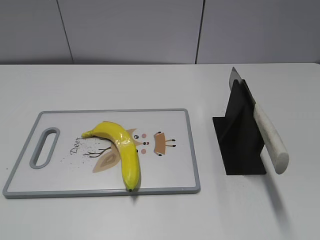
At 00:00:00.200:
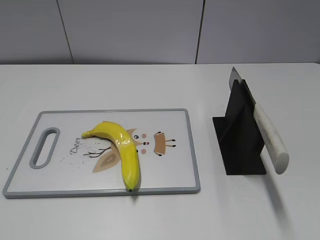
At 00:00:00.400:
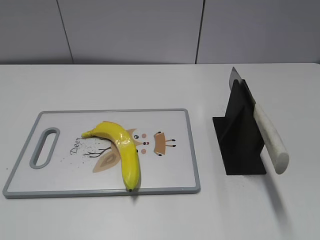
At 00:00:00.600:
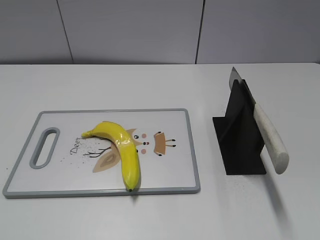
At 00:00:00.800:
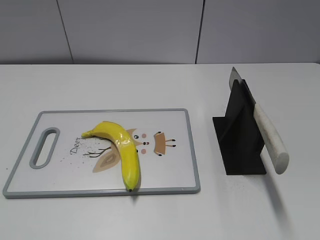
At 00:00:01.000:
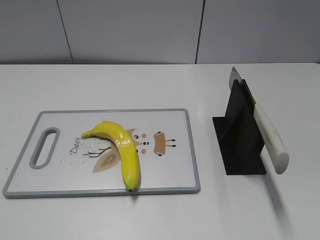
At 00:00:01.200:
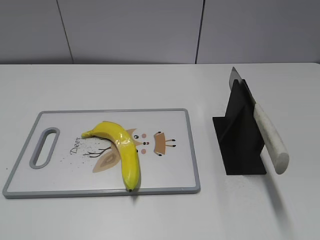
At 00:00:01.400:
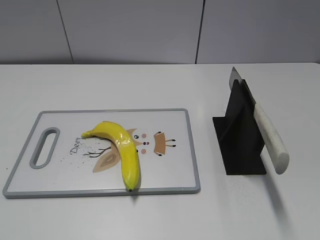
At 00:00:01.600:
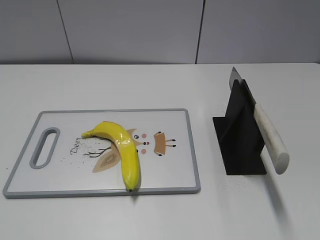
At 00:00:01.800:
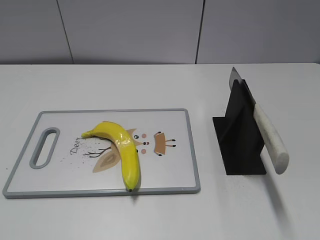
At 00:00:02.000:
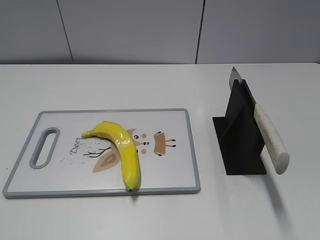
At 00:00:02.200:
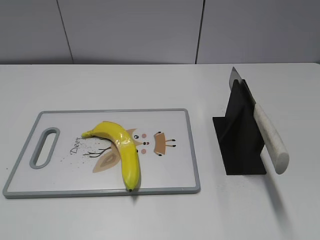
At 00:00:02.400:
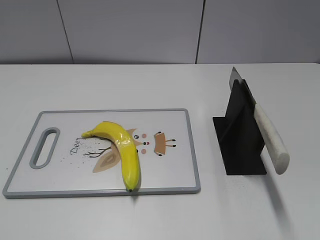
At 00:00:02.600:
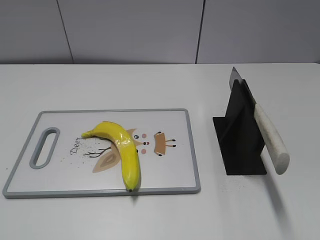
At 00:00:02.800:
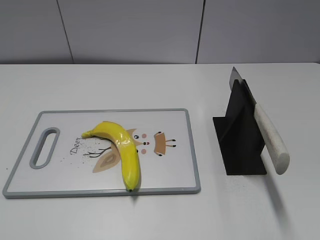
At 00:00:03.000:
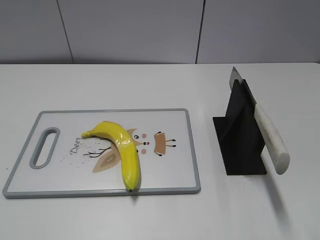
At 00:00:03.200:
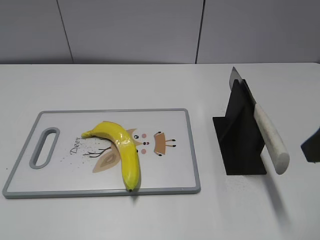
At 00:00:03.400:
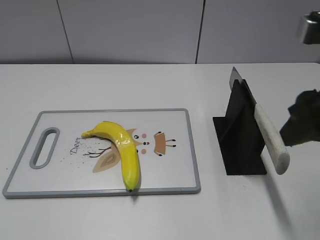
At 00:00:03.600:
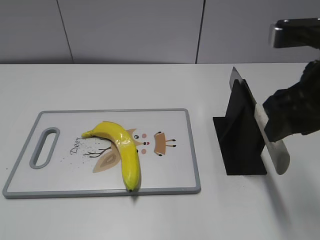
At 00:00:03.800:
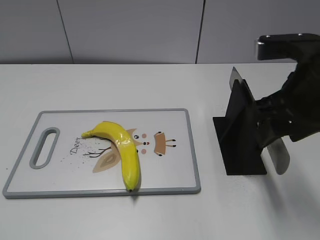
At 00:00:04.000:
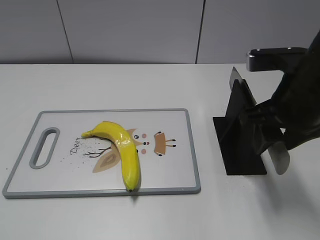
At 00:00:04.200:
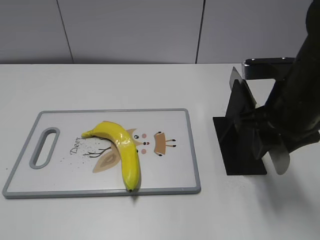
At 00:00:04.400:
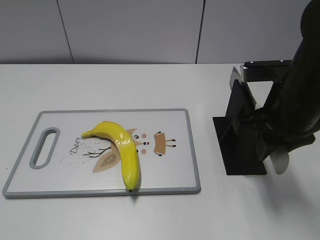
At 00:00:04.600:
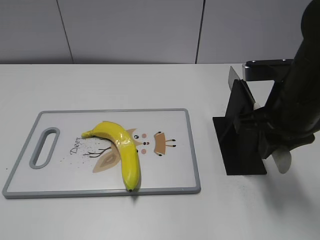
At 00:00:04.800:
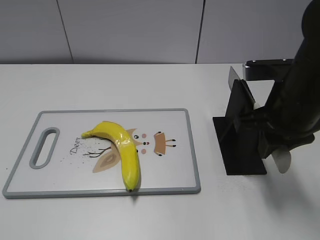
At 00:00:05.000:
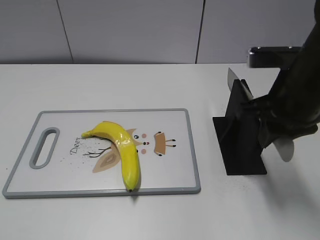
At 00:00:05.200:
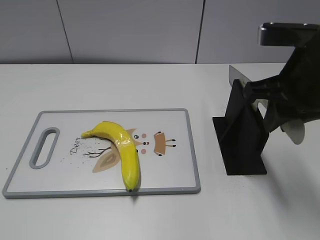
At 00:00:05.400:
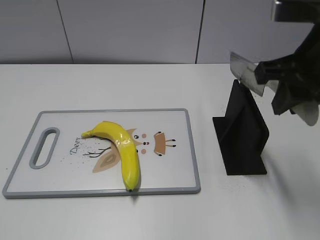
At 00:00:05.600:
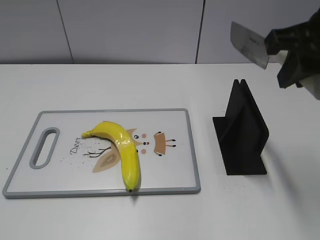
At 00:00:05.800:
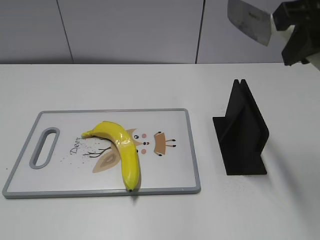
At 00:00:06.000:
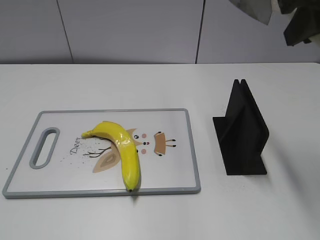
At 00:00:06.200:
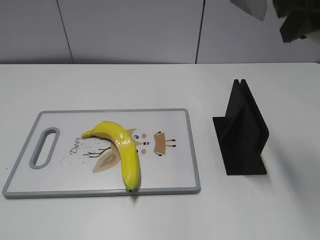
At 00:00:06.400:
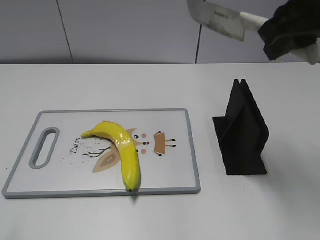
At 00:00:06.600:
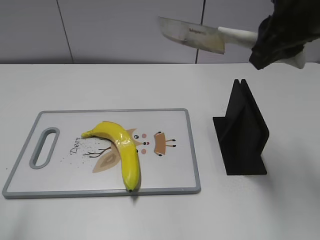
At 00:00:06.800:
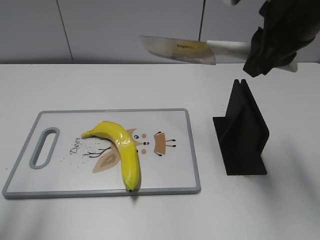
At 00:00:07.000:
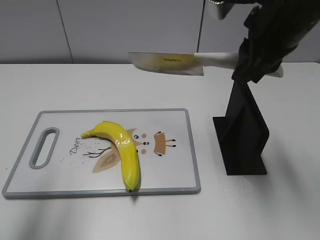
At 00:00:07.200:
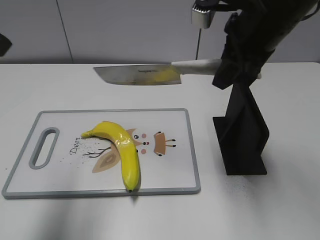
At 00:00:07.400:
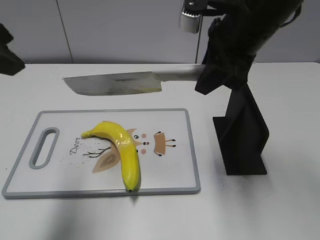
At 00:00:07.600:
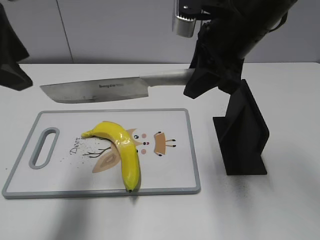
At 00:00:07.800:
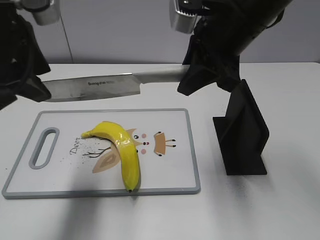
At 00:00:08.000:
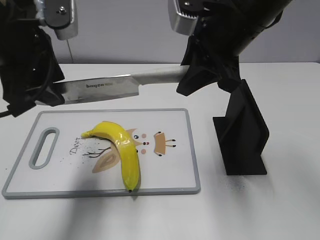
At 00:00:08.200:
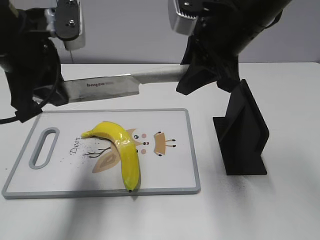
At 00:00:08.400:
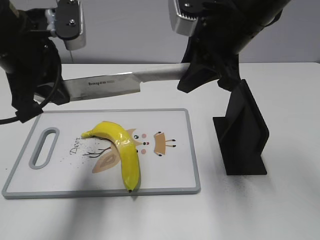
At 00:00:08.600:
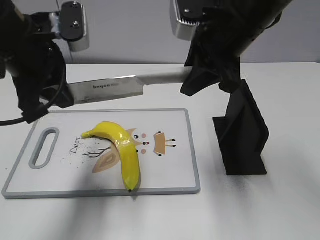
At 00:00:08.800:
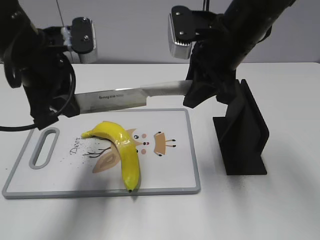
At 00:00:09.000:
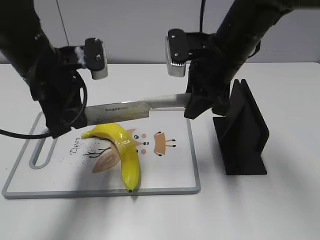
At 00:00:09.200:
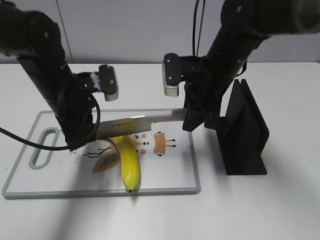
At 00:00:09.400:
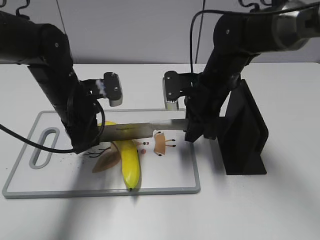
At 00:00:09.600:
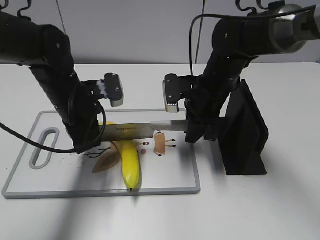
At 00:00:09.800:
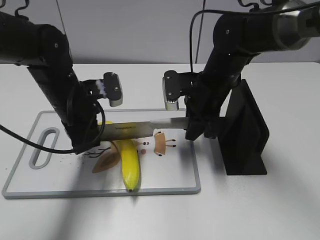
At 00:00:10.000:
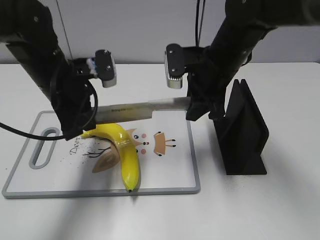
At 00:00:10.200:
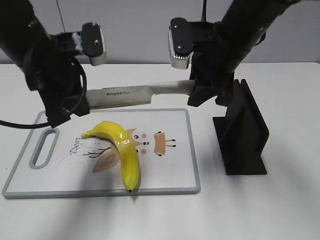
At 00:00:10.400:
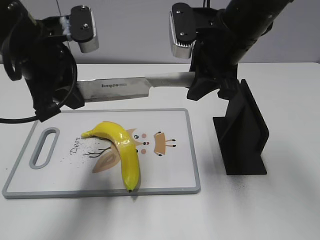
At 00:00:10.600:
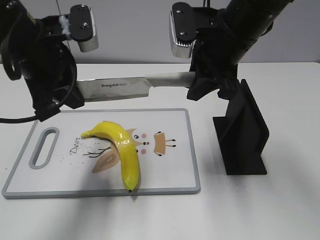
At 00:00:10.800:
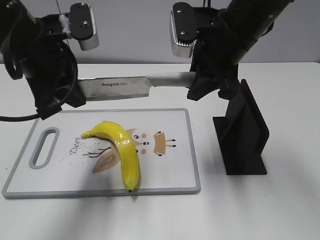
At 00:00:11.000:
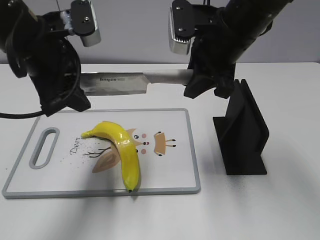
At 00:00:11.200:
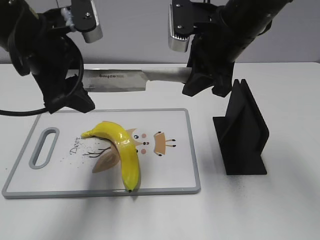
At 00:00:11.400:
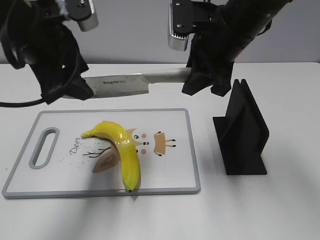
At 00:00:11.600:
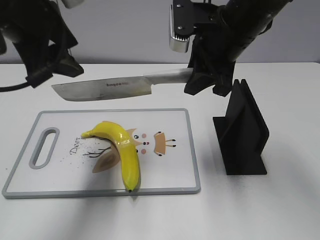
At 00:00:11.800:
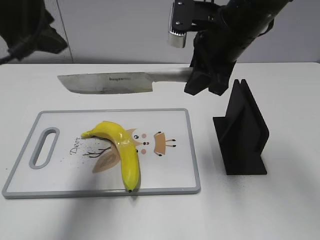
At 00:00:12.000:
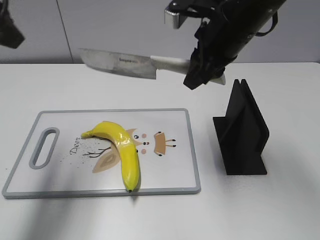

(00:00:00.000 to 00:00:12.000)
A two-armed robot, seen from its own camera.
Task of the whole recording: cut plastic banana.
Step, 00:00:00.000 - 00:00:05.800: Grab the knife handle with your right hand.
Step, 00:00:06.000 - 00:00:10.400: Hold the blade with your left hand.
00:00:03.000 - 00:00:04.400: The right gripper shifts approximately 15 cm forward, downward and to the left, and closes its fingers.
00:00:04.400 - 00:00:06.000: The right gripper heads upward, covering roughly 15 cm.
00:00:06.000 - 00:00:07.600: The left gripper heads forward and to the right, covering roughly 25 cm, while the right gripper moves downward, to the left and forward, approximately 15 cm.
00:00:07.600 - 00:00:09.000: The right gripper goes about 5 cm downward; the left gripper goes approximately 15 cm downward and forward, and closes its fingers.
00:00:09.000 - 00:00:10.400: The left gripper reaches about 10 cm downward, then returns; the right gripper moves about 10 cm downward and comes back.
00:00:10.400 - 00:00:12.000: The left gripper shifts some 10 cm upward and to the left, and opens up.

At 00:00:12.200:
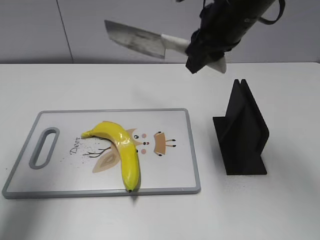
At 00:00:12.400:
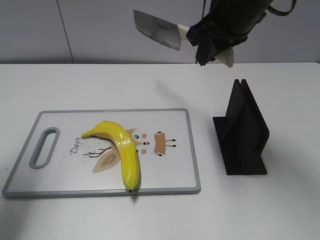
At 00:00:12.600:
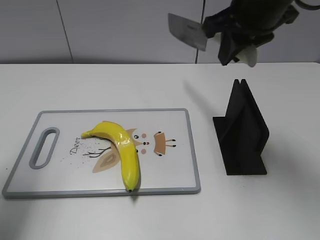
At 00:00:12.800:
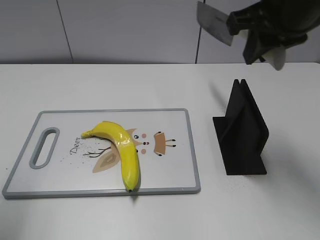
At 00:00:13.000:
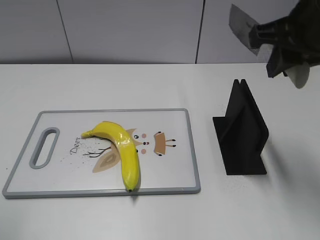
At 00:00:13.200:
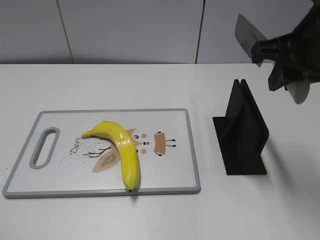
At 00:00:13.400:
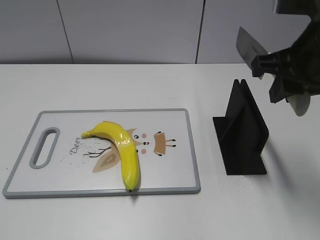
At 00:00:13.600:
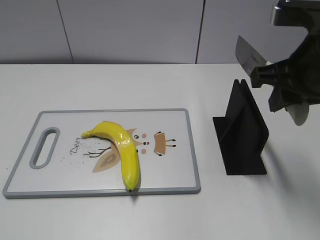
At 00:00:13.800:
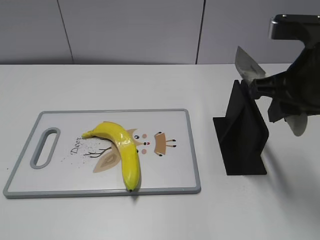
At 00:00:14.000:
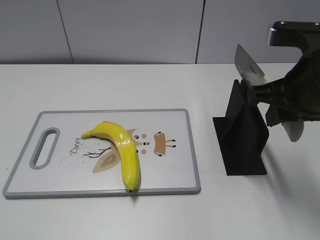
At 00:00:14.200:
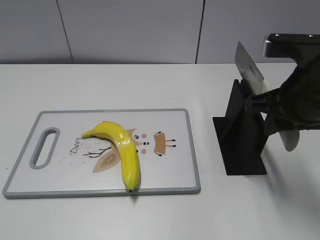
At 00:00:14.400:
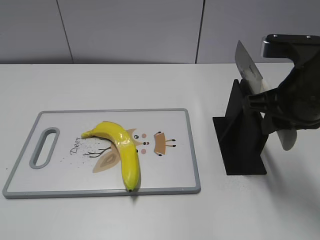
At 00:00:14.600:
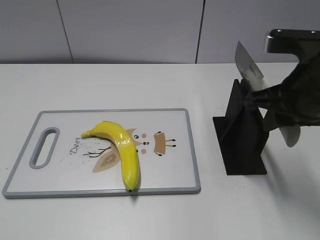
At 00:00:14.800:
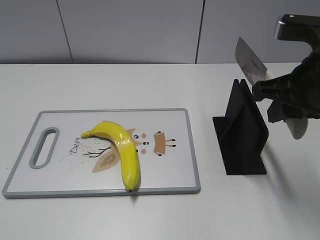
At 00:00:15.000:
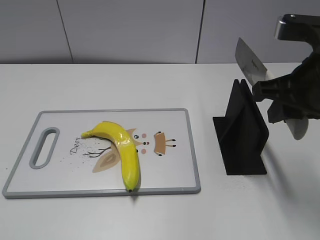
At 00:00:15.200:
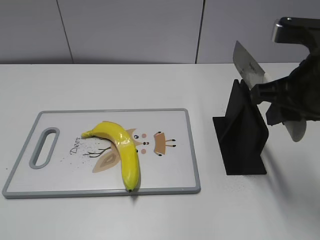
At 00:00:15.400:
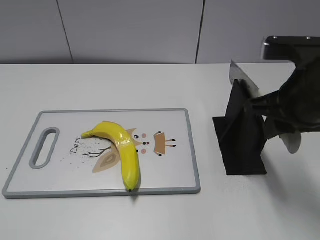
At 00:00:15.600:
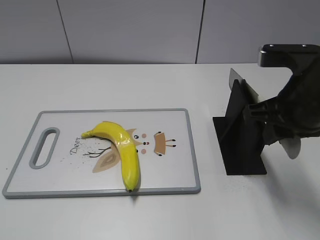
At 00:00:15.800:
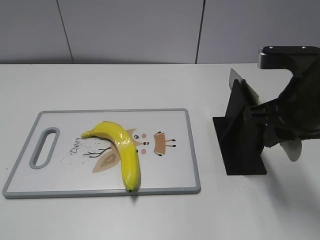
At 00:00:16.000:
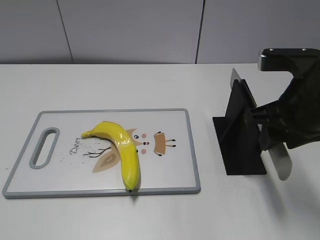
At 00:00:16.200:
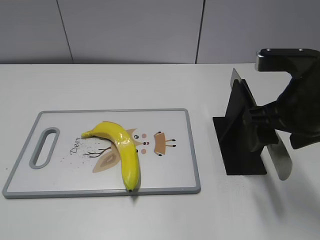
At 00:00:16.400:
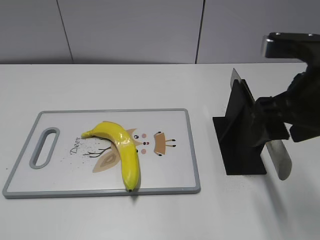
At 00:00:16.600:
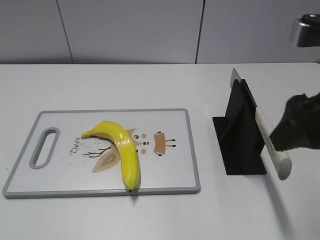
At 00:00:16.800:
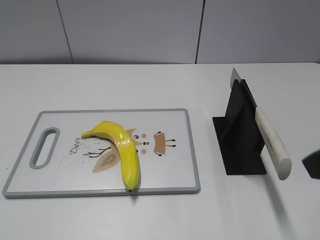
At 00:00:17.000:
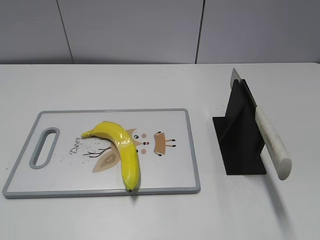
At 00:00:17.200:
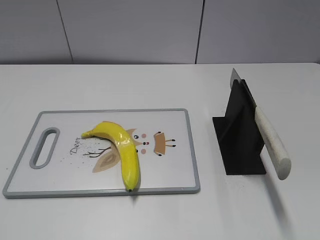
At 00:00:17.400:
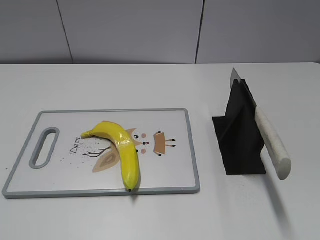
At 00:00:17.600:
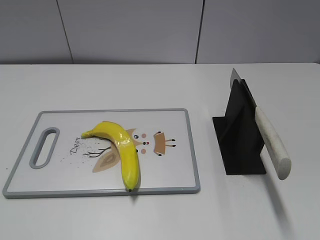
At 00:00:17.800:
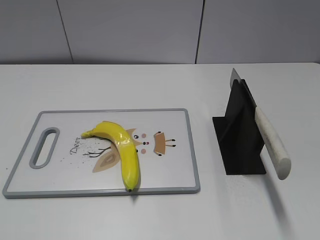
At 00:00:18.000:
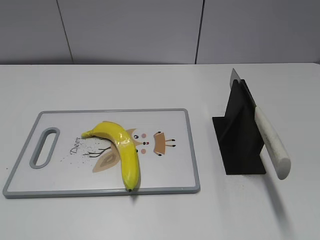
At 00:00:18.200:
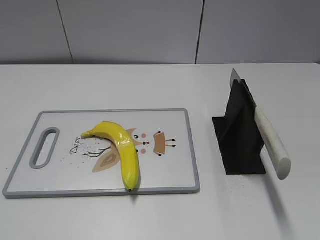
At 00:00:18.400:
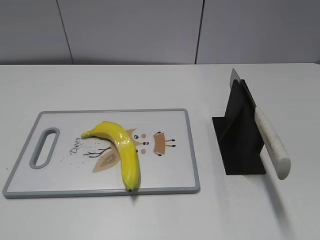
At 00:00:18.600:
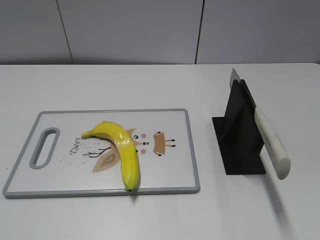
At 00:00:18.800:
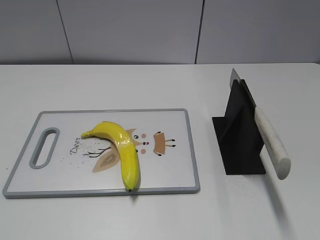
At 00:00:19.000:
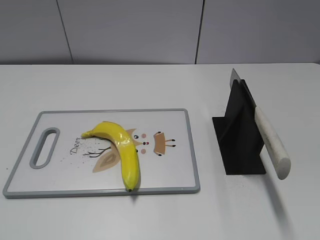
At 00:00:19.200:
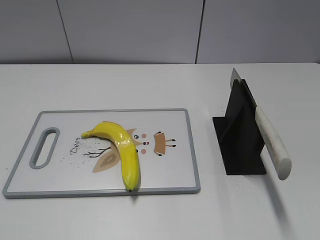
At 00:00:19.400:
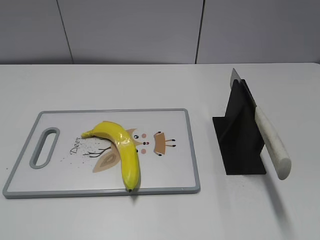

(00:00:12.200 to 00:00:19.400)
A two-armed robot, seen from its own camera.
Task of the whole recording: cut plastic banana.
Step, 00:00:12.400 - 00:00:13.400: Secure the blade with your left hand.
Step, 00:00:13.800 - 00:00:19.400: Place the knife on the storage rack with your right hand.
00:00:12.200 - 00:00:13.600: The right gripper heads backward and to the right, covering approximately 15 cm, while the left gripper travels backward by about 25 cm.
00:00:13.600 - 00:00:15.000: The grippers move only a little.
00:00:15.000 - 00:00:16.600: The right gripper ends up roughly 5 cm from where it was, and opens.
00:00:16.600 - 00:00:18.000: The right gripper goes some 20 cm backward and to the right.
